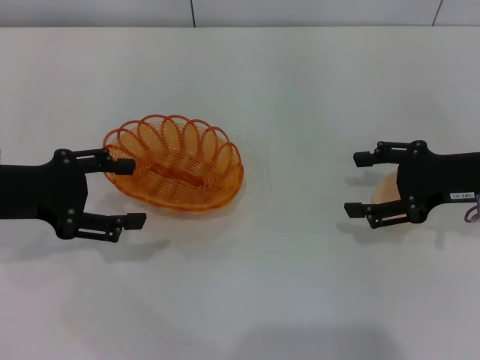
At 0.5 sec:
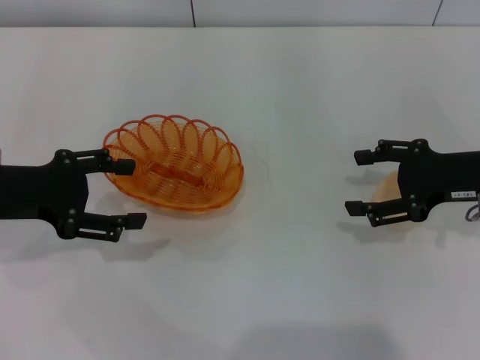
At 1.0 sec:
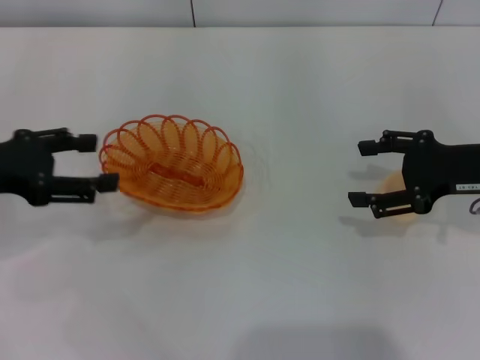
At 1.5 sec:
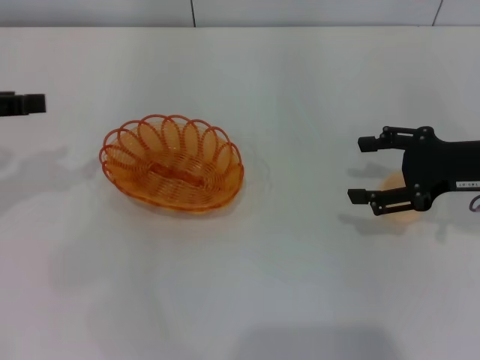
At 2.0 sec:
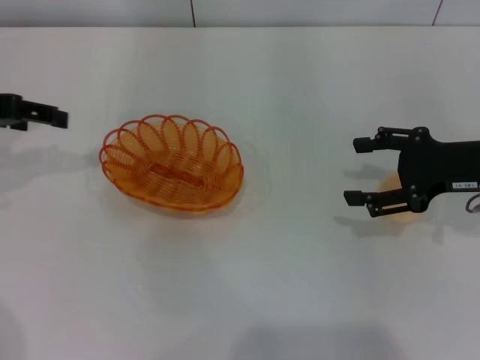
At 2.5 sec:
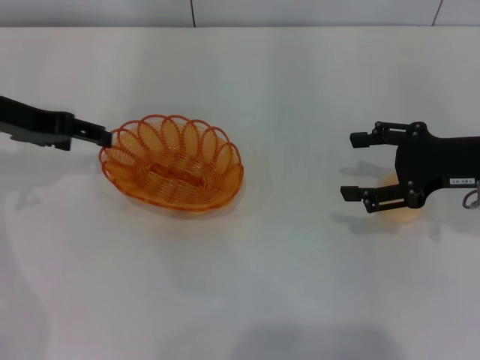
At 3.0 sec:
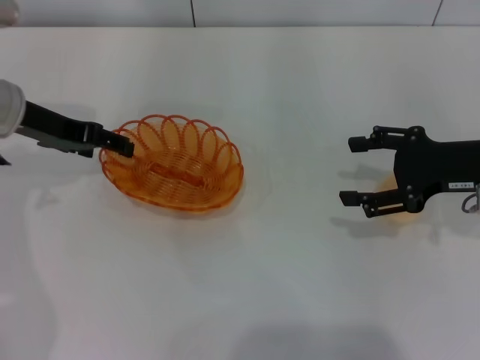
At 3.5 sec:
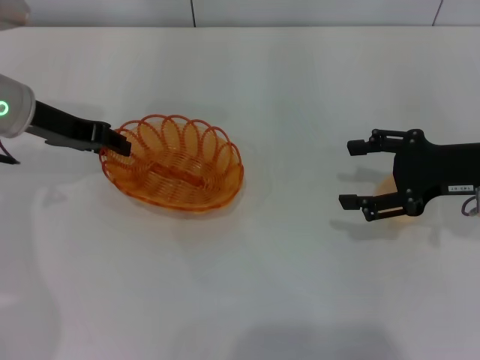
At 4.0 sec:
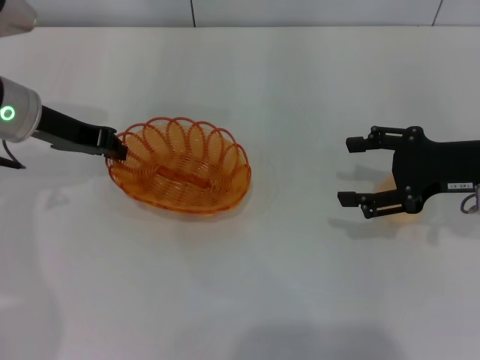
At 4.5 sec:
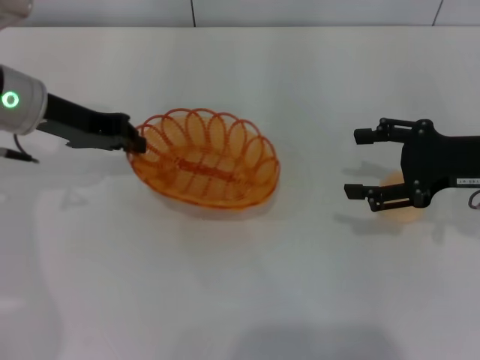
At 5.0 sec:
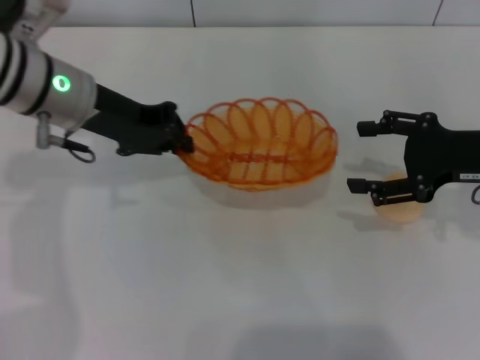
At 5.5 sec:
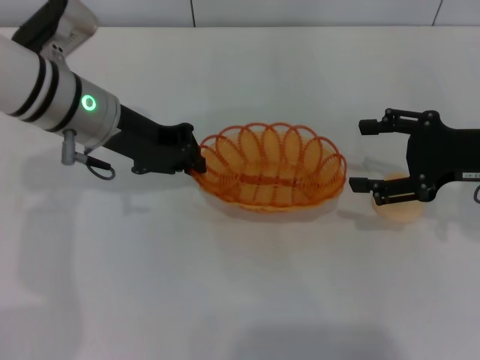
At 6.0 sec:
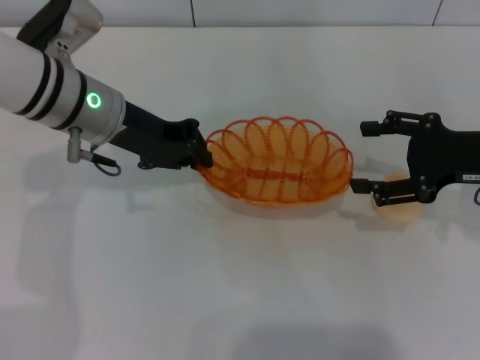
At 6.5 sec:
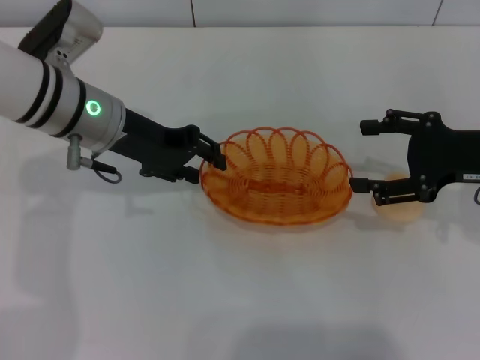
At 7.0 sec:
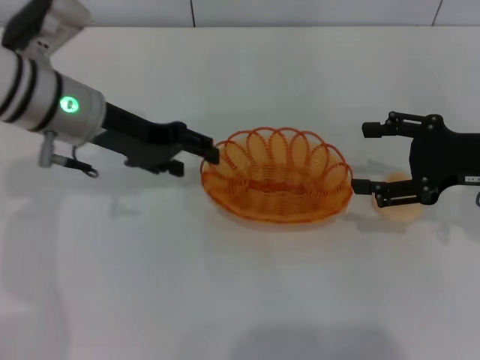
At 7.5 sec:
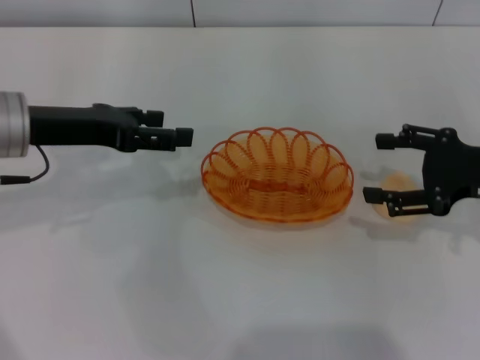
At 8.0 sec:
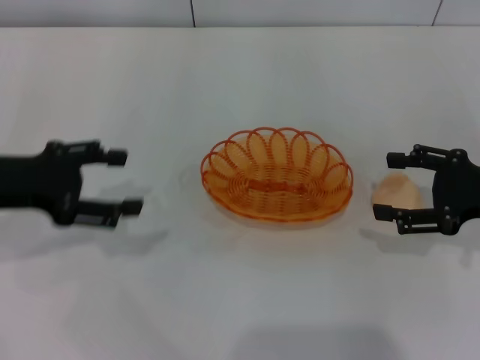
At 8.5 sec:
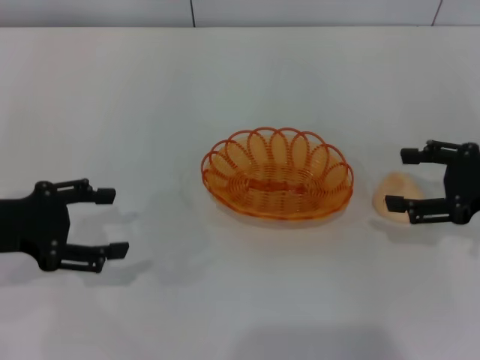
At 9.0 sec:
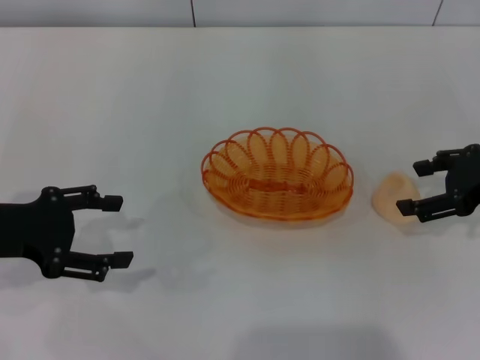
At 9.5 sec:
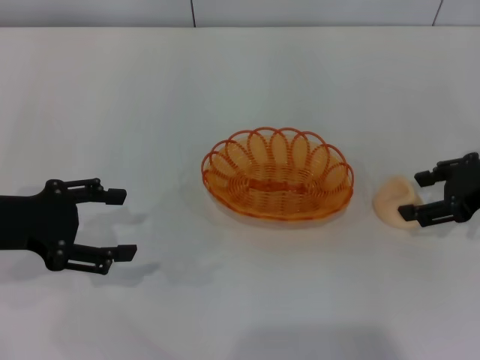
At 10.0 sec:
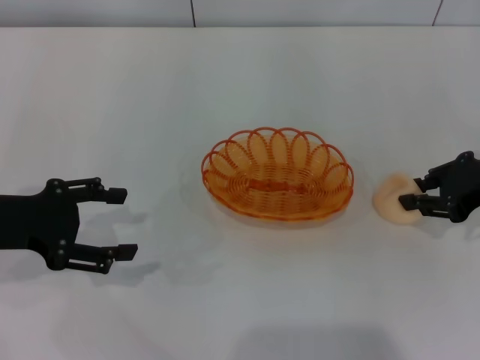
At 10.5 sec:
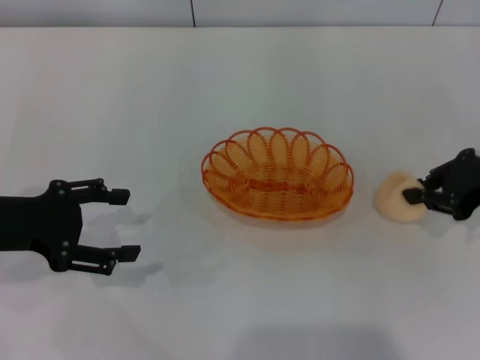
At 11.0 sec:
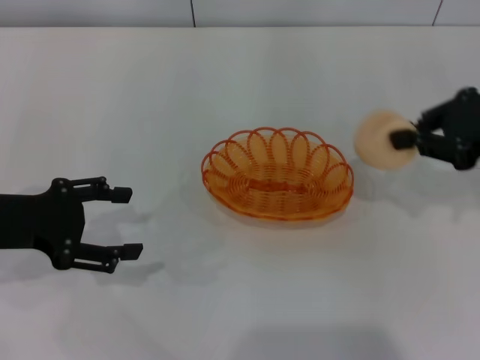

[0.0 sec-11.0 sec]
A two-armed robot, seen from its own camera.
Step, 0.0 sec to 5.0 sec: Pick up the basket with the left gripper.
Step, 5.5 sec to 7.0 sec: Place the basket in the center of view with the left gripper.
Step, 7.5 sec to 10.5 sec: Pick up the egg yolk pastry with the right gripper.
0.0 sec to 2.0 sec: The left gripper moves upward and forward, some 10 cm.
2.0 sec to 3.5 sec: The left gripper is displaced to the right and downward by some 10 cm.
3.5 sec to 5.5 sec: The left gripper goes about 10 cm to the right, and closes up.
5.5 sec to 7.5 sec: The left gripper heads to the left, covering roughly 5 cm, and opens its fingers.
7.5 sec to 9.0 sec: The left gripper shifts approximately 10 cm backward and to the left.
9.0 sec to 11.0 sec: The right gripper goes approximately 5 cm upward, and closes.

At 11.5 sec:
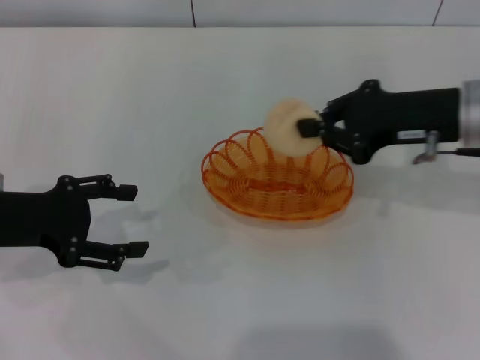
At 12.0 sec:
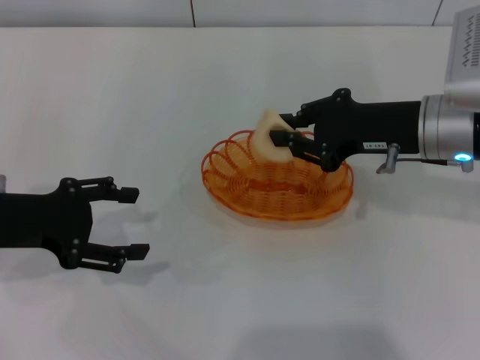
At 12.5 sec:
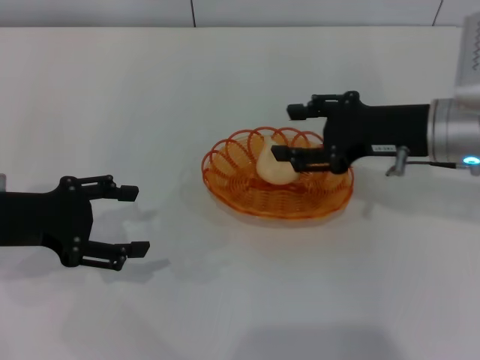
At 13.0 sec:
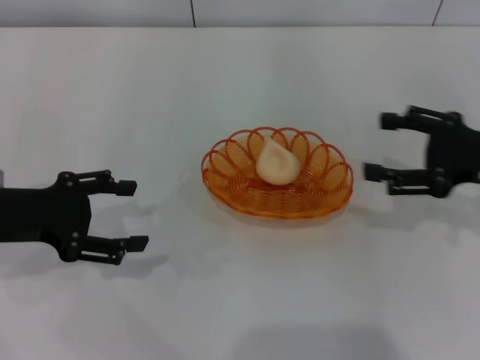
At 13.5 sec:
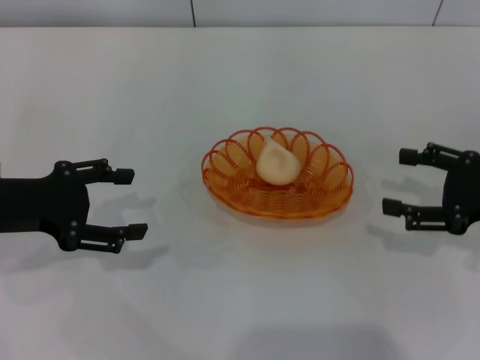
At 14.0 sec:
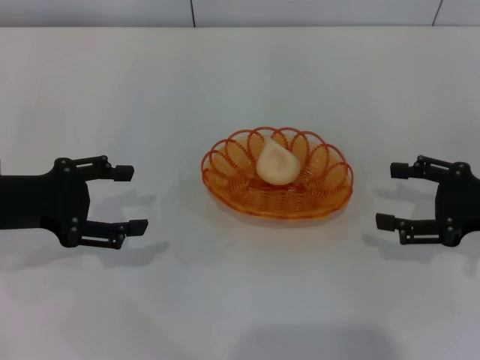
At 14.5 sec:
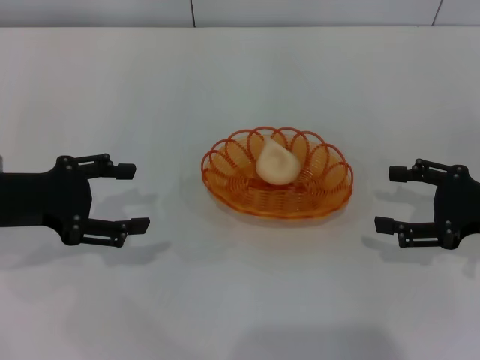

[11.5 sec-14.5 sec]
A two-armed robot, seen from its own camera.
Step, 11.5 sec to 12.5 sec: Place the egg yolk pastry into the basket with the right gripper.
11.5 sec to 13.0 sec: The right gripper goes roughly 10 cm to the right, and opens.
13.0 sec to 14.5 sec: The grippers move only a little.
